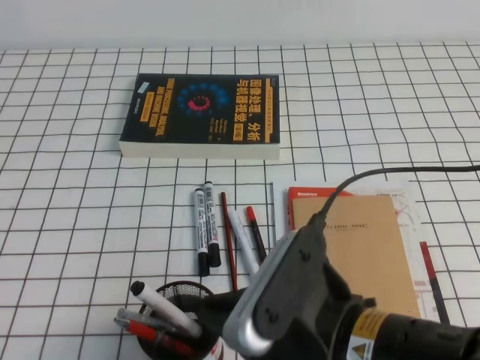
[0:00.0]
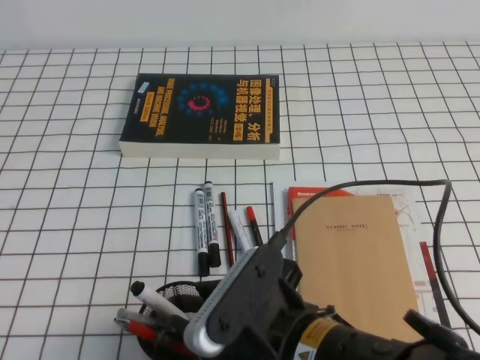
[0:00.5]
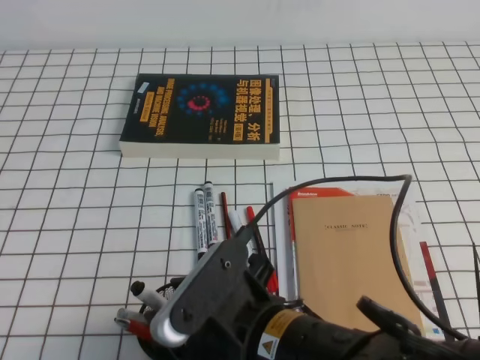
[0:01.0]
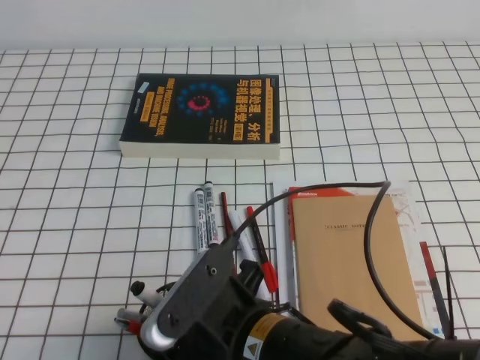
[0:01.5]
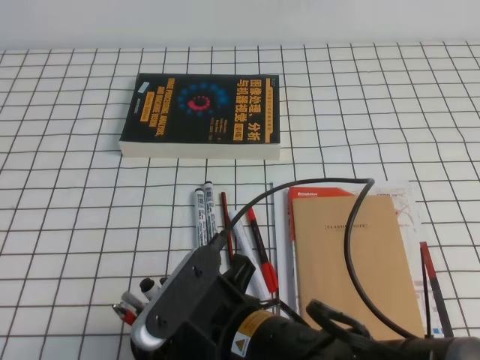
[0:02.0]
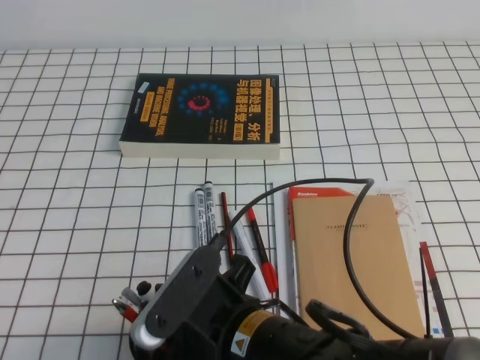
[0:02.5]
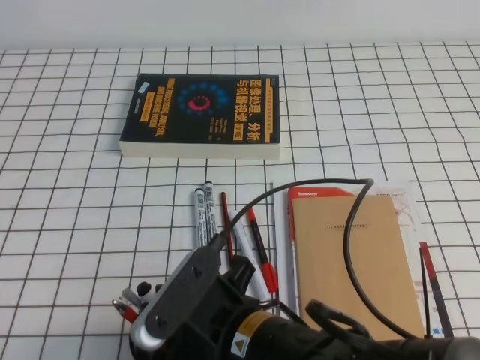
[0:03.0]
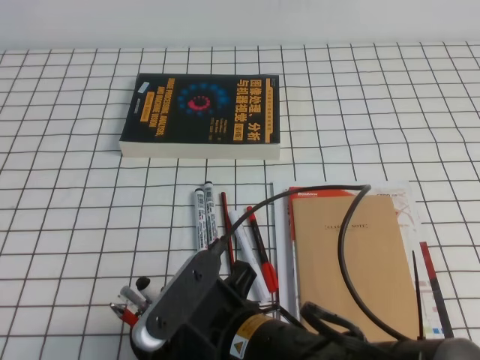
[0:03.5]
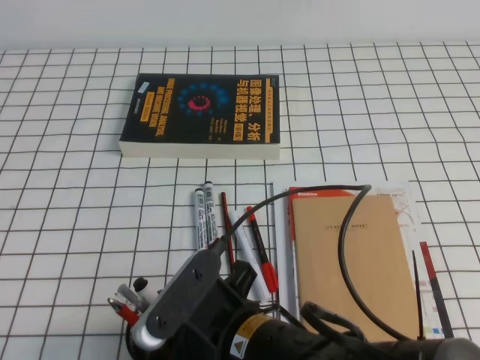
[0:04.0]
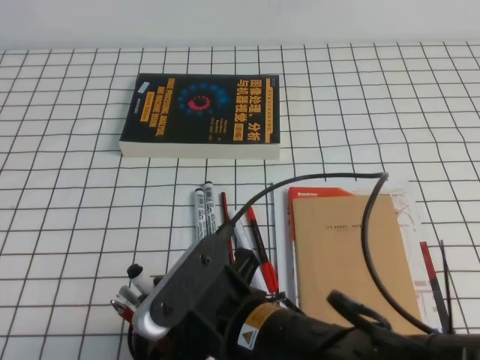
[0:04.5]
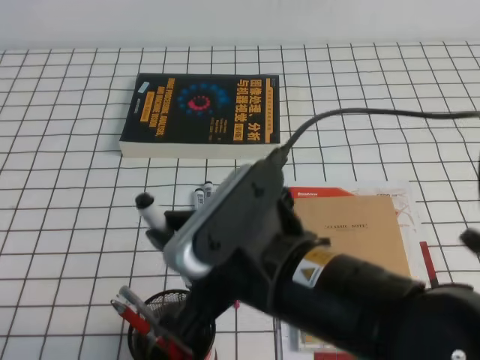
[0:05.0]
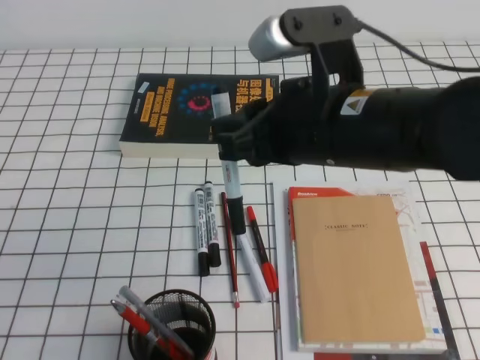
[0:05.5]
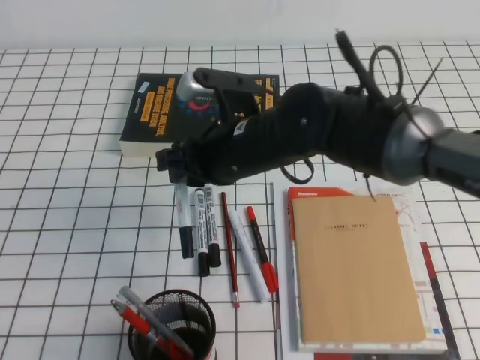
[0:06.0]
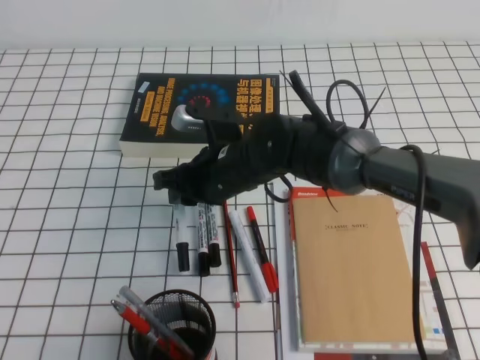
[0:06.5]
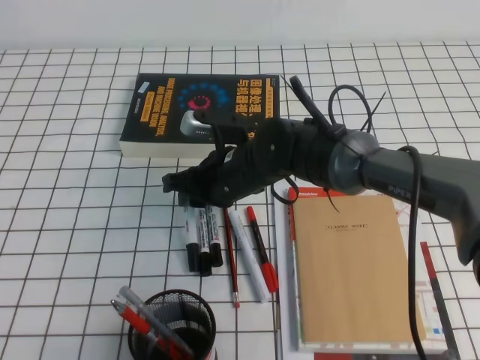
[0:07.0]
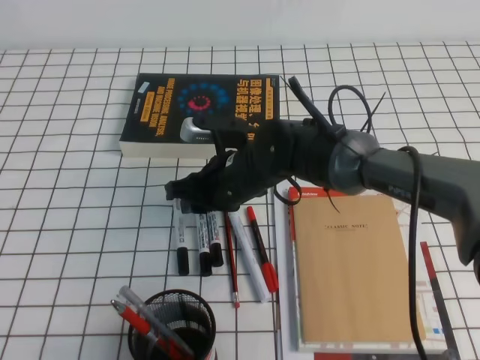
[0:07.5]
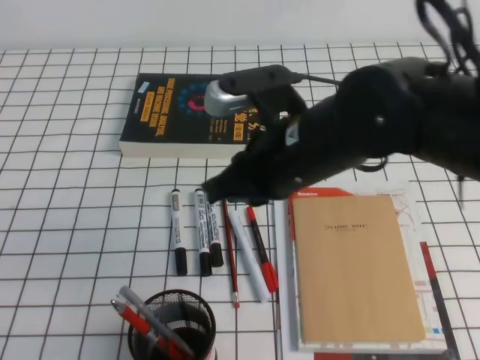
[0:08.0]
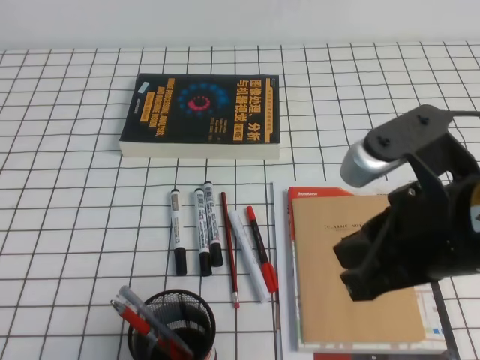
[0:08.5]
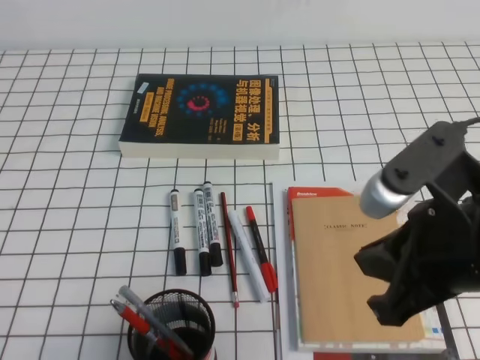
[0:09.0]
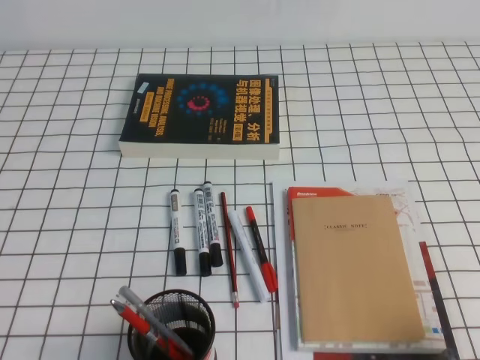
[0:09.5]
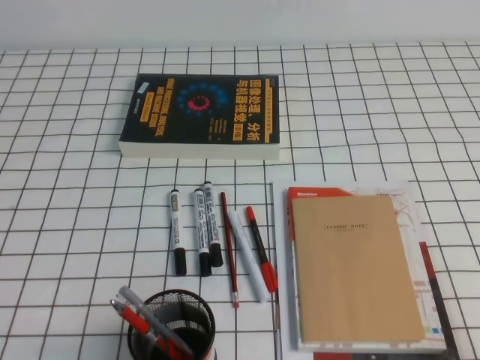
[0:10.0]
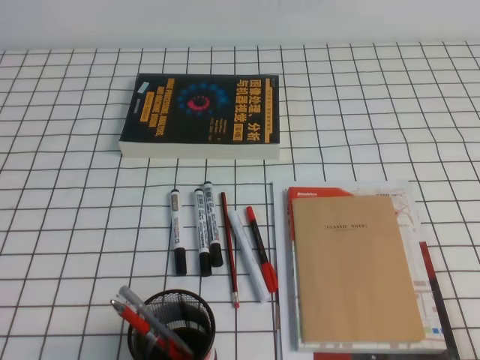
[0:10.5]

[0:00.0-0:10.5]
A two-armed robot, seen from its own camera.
Step, 0.0 to 10.5 s: Pick up the pen from the pen holder.
0.0 to 2.0 s: The right gripper goes about 10 cm to the left and downward, and opens.
2.0 to 4.0 s: The right gripper closes its fingers.
4.0 to 6.5 s: The right gripper heads forward, covering about 20 cm.
6.5 to 8.5 s: The right gripper travels backward, to the right and upward by roughly 30 cm, and closes its fingers.
8.5 to 10.5 s: The right gripper is displaced to the right, downward and backward by approximately 25 cm.

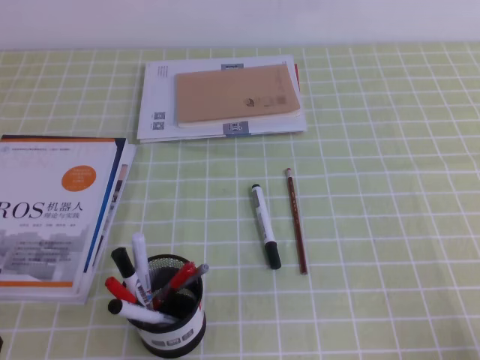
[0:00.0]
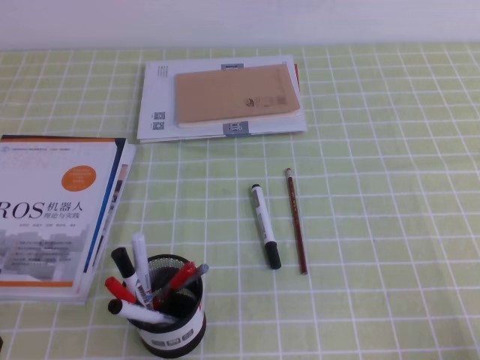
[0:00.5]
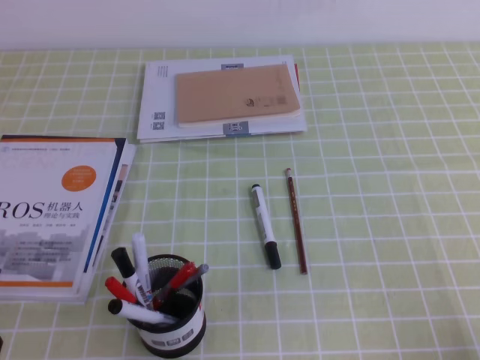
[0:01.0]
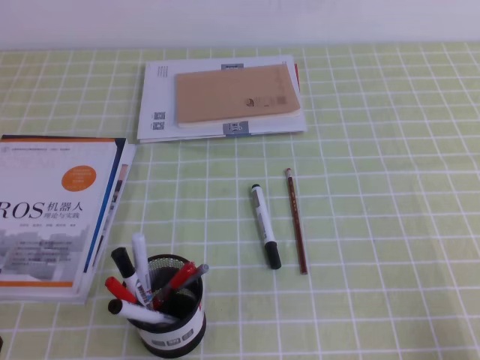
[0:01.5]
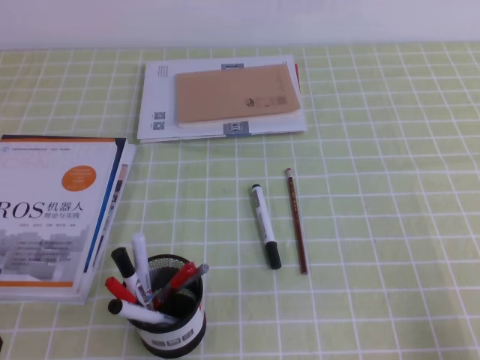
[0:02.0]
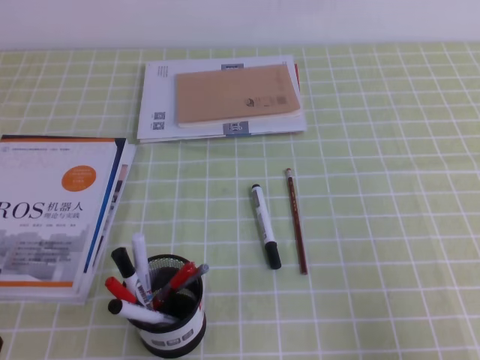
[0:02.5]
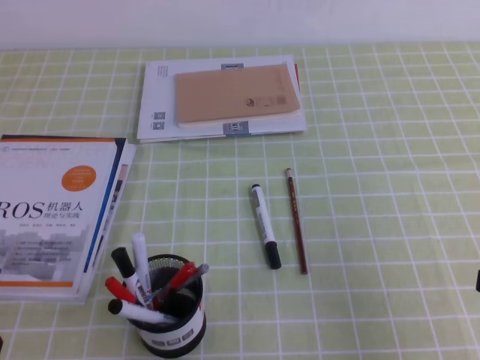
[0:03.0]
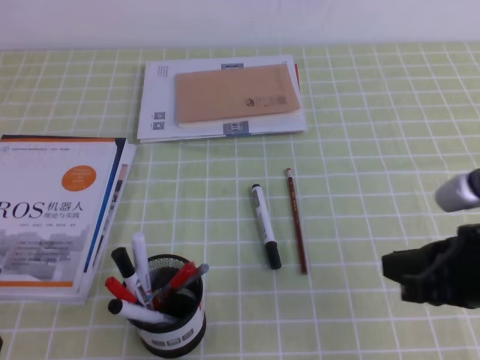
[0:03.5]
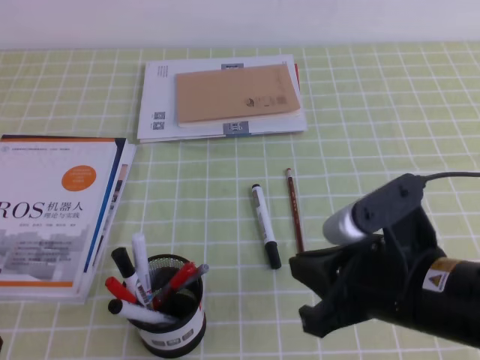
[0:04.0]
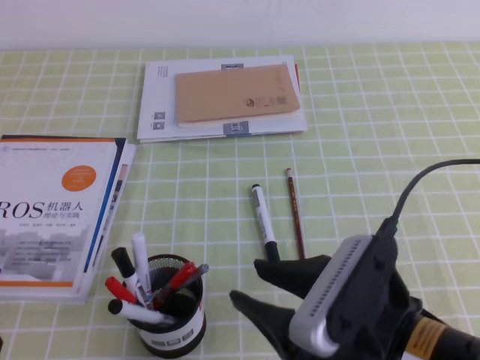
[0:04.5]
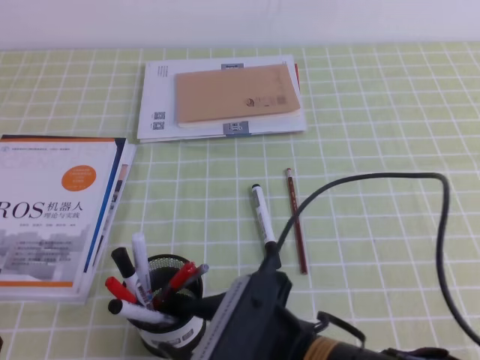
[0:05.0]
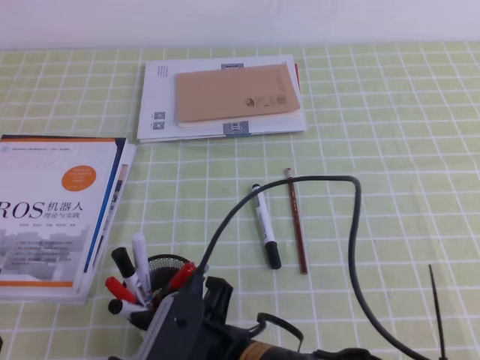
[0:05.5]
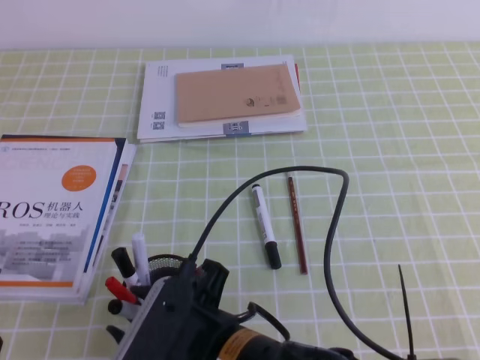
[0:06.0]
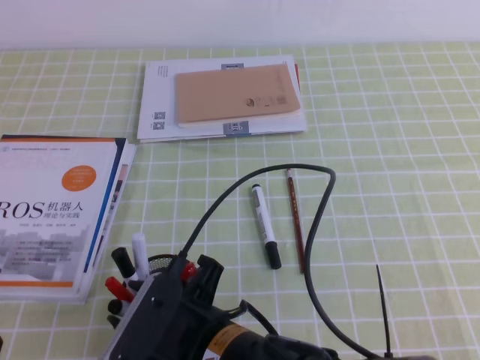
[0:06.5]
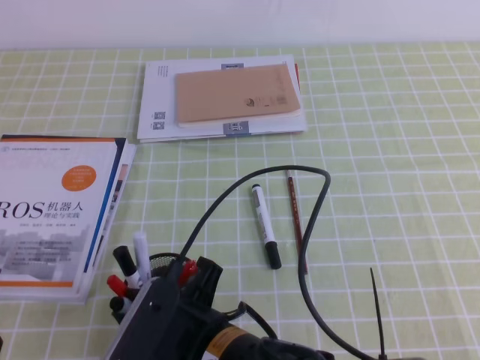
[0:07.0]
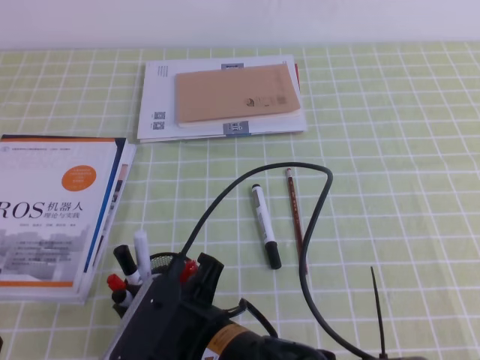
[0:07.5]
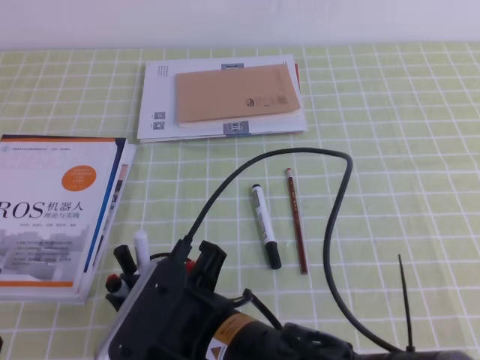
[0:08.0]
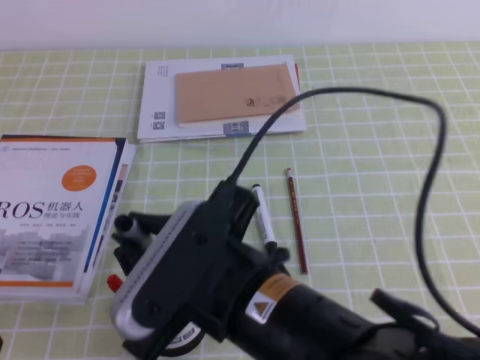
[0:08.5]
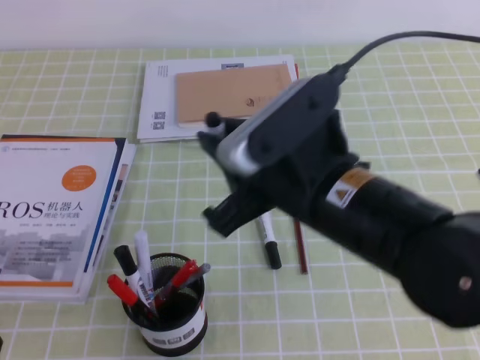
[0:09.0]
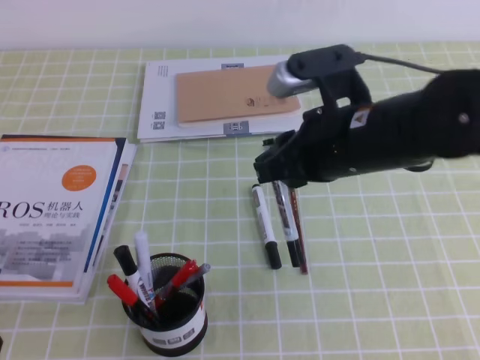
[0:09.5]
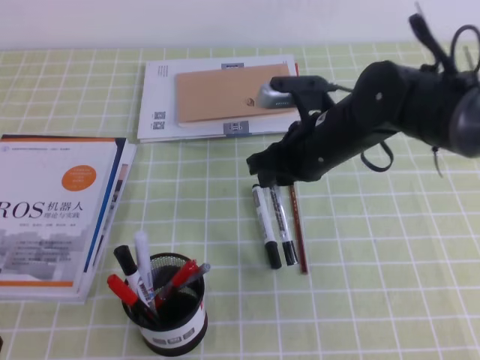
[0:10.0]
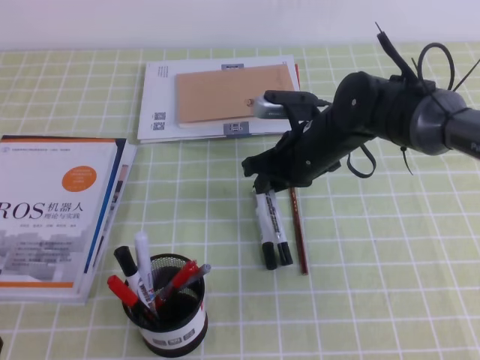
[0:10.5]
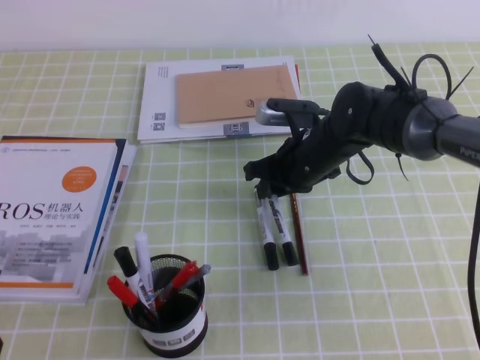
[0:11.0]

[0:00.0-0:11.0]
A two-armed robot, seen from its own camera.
2.0 to 3.5 s: The right gripper moves forward, to the left and upward, approximately 15 cm.
3.5 to 5.5 s: The right gripper shifts roughly 25 cm to the left, and opens up.
5.5 to 7.5 s: The right gripper closes.
7.5 to 9.0 s: The right gripper is displaced upward, to the right and forward by about 15 cm.
9.0 to 11.0 s: The right gripper is displaced forward and downward by some 25 cm.

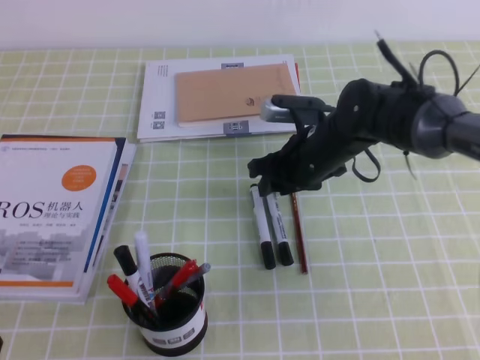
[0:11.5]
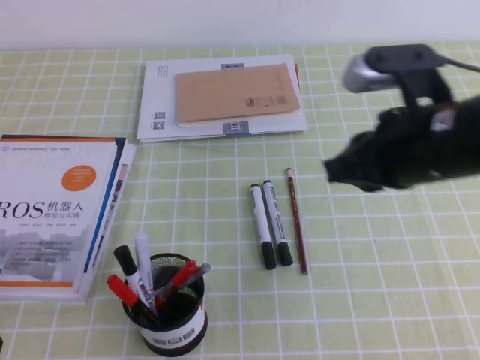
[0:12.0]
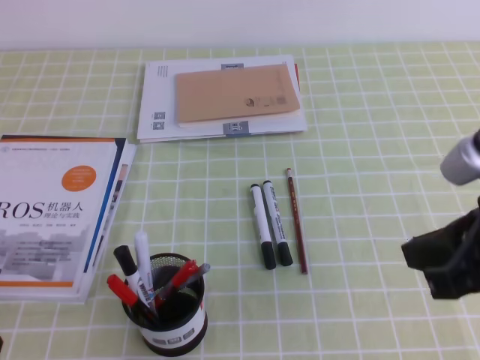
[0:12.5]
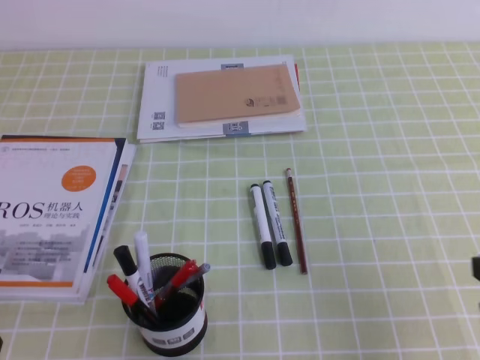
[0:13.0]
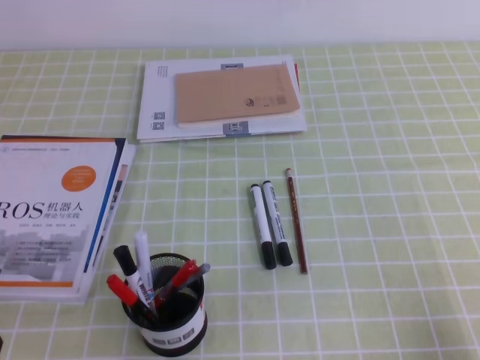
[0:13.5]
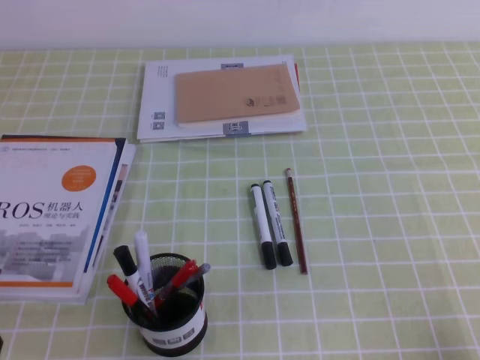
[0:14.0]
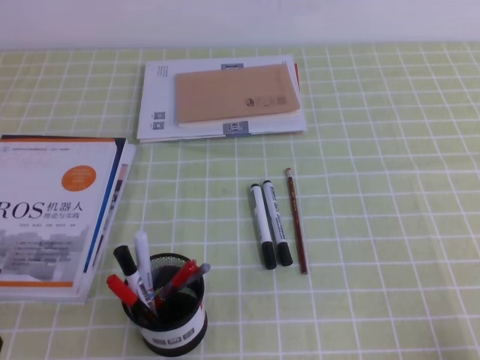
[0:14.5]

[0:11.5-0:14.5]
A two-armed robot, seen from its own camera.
Step, 11.5 to 14.5 s: Pick up the pen from the pen holder.
11.5 to 13.0 s: The right gripper travels backward and to the right by some 30 cm, and closes its fingers.
13.0 to 14.5 s: The right gripper heads downward and backward, covering some 15 cm.

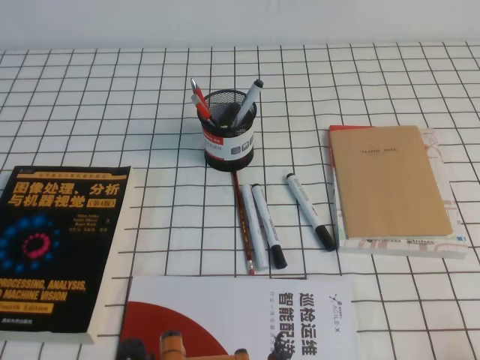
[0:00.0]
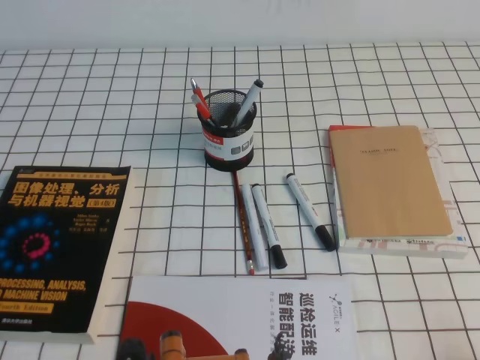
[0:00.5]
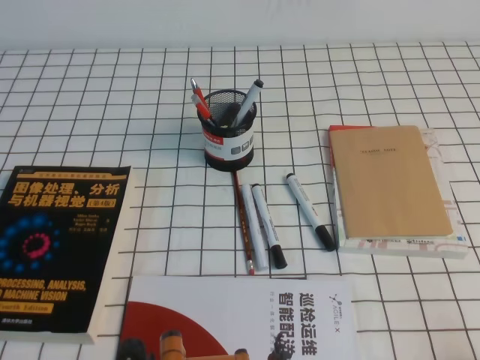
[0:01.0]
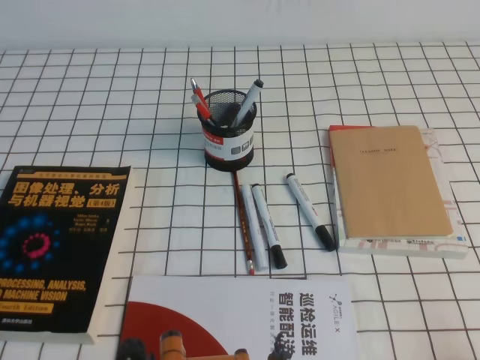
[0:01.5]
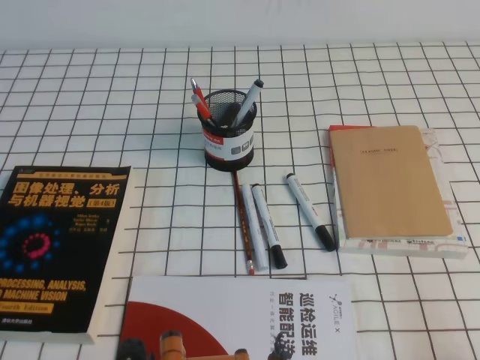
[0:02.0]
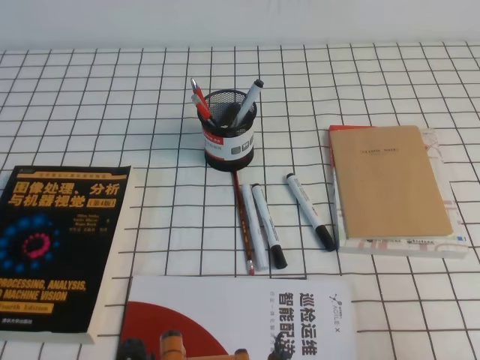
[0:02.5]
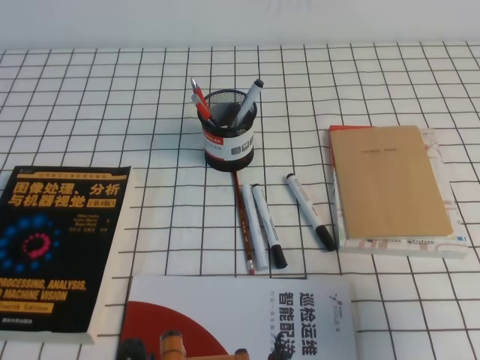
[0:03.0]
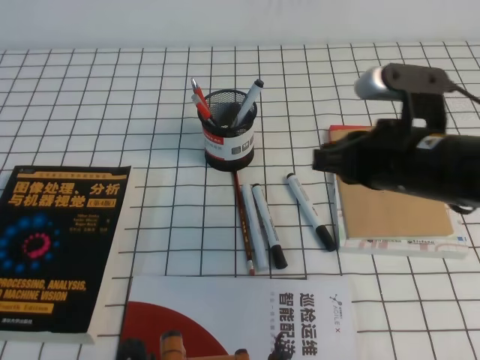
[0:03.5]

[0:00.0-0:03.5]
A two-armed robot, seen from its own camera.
2.0 to 3.5 s: The right gripper shifts roughly 25 cm forward and to the left.
